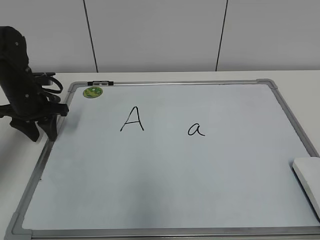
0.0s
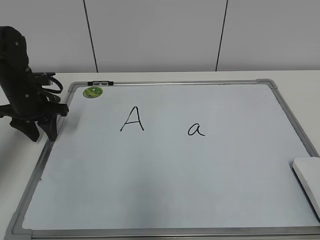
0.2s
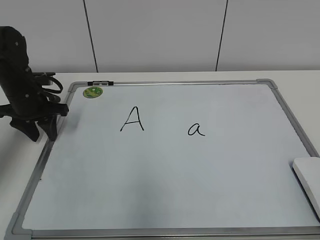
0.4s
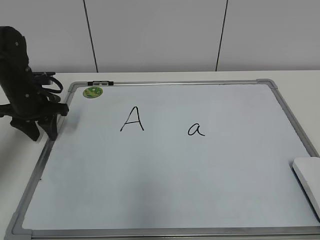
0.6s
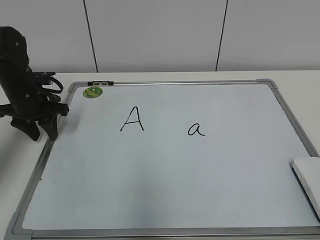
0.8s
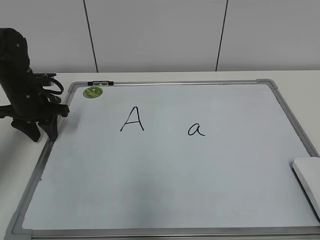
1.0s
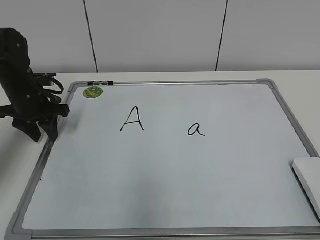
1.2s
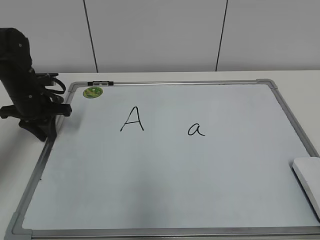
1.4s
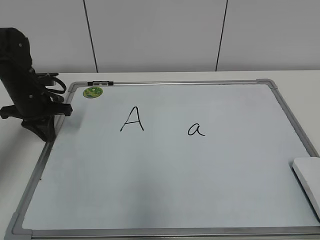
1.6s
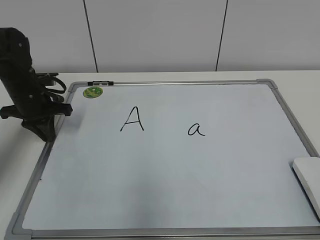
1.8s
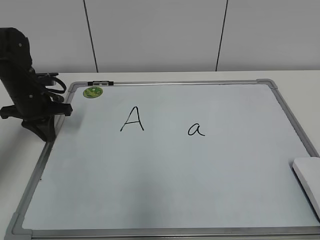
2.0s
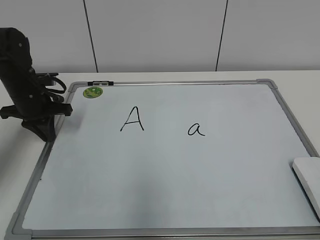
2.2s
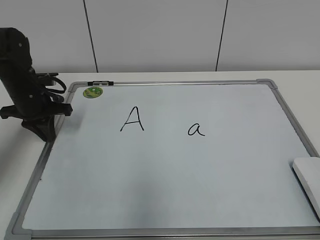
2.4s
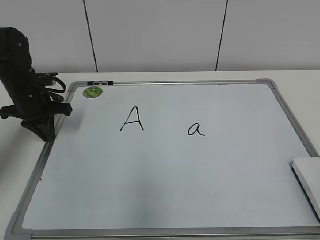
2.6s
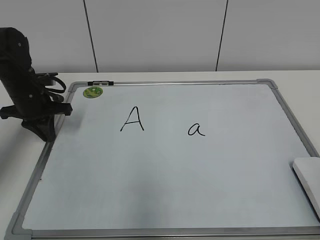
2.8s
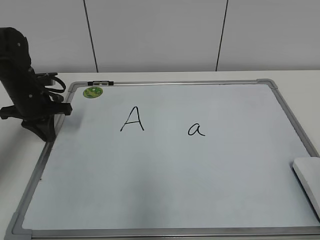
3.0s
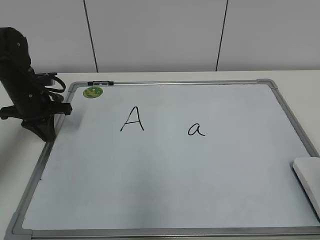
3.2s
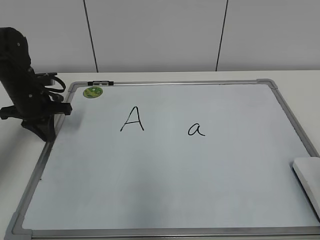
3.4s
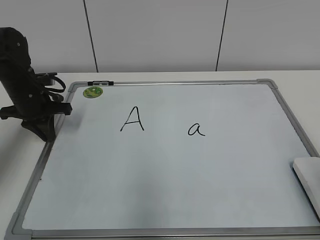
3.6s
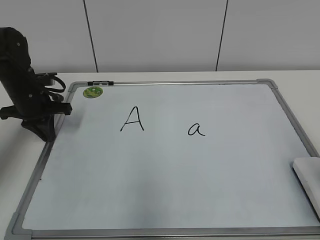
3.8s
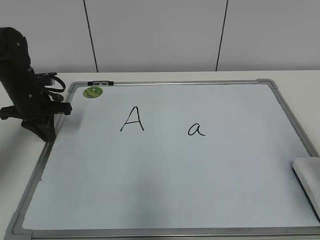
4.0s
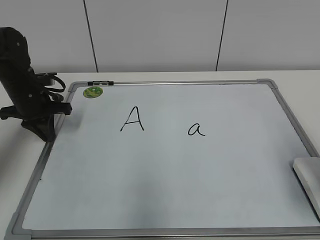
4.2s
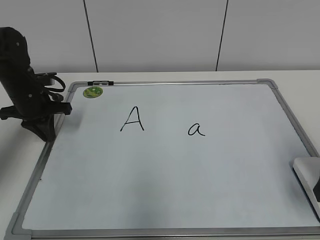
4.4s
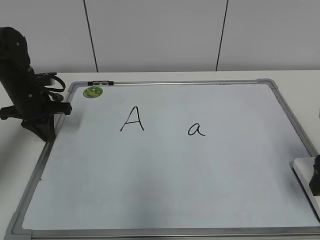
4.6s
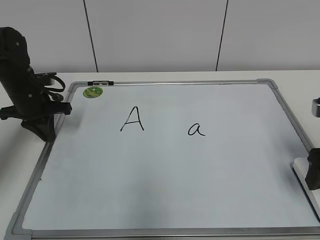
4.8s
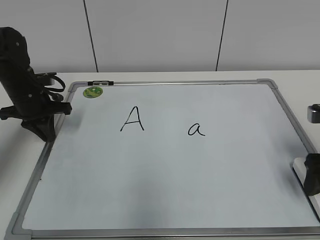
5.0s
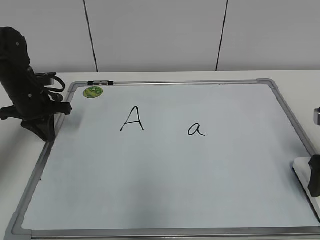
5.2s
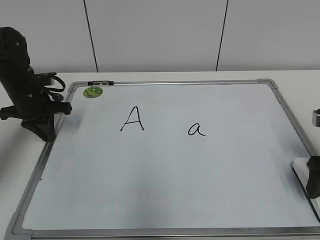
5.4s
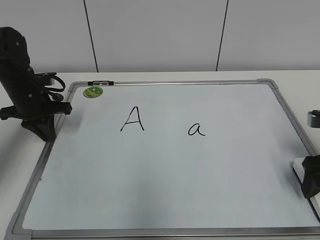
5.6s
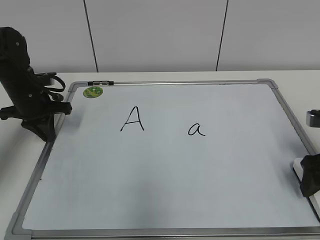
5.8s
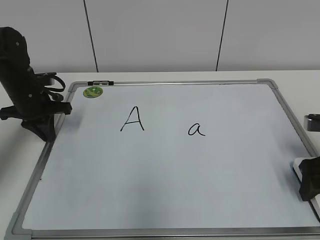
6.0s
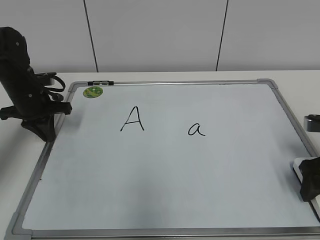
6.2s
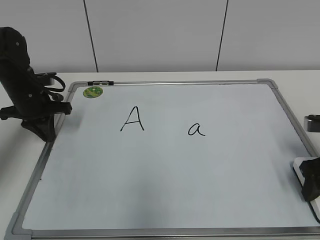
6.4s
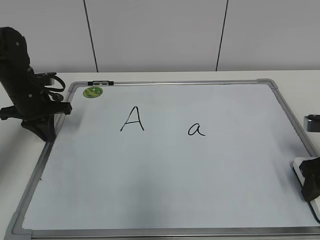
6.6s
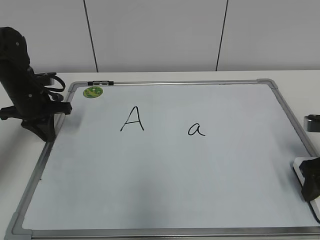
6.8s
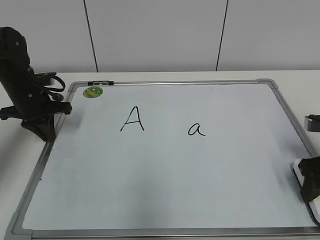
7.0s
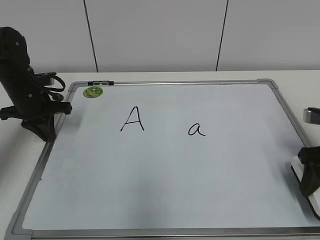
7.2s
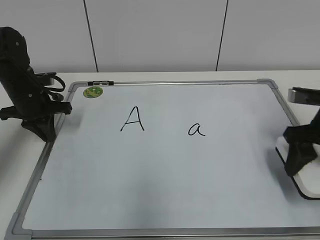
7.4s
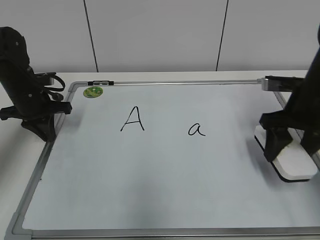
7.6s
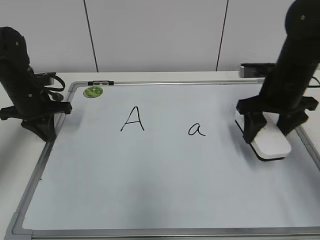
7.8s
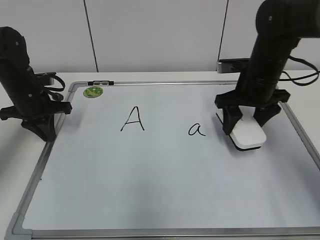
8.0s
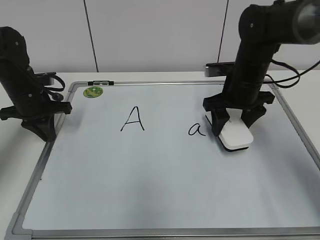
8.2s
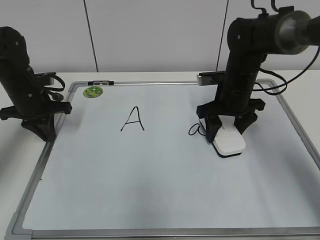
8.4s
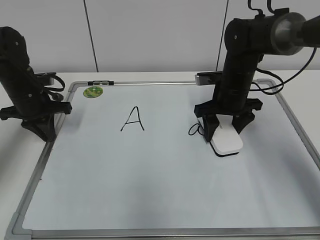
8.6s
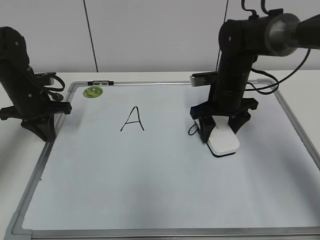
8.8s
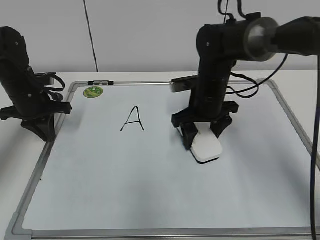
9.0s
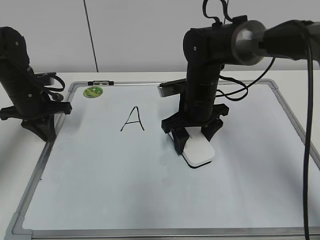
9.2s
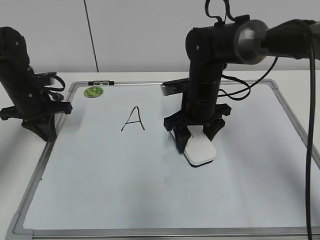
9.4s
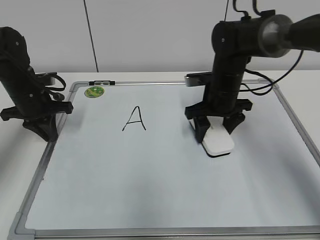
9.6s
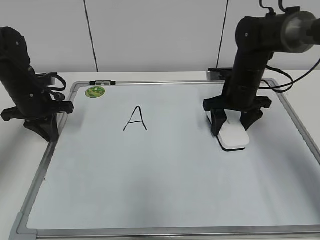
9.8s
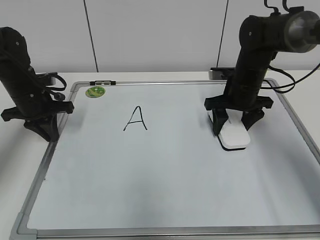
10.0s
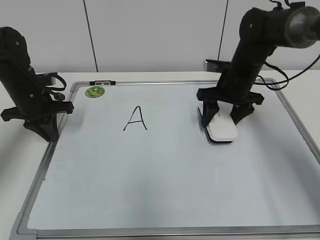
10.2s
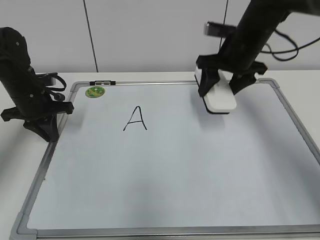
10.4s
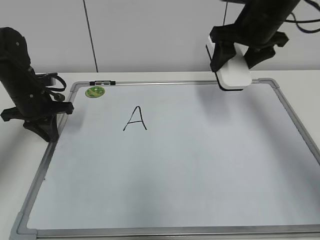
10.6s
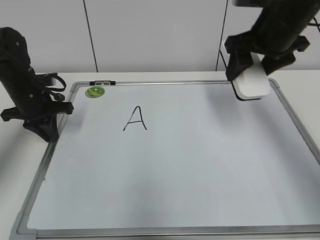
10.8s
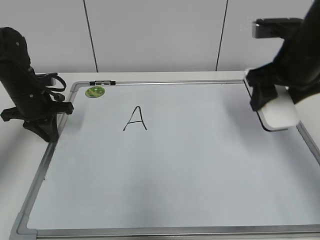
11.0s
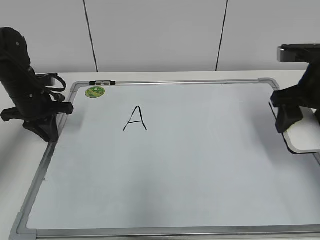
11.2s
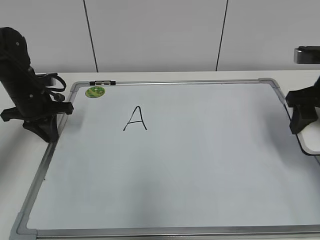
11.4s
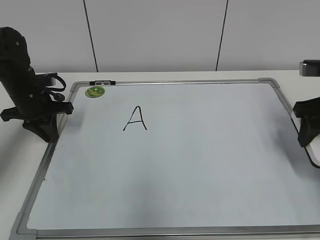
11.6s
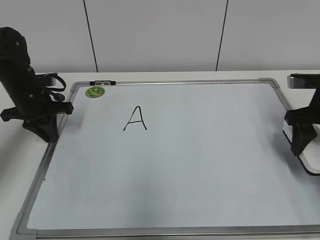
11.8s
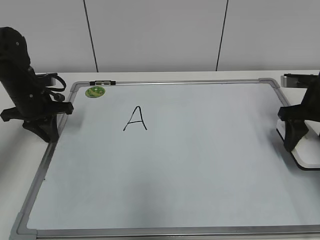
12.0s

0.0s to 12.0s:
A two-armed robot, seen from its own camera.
Task of the whole recording: pick up the eraser on the blackboard and erase the letter "a".
Step, 7.0s to 9.8s: Erase the letter a with your right hand.
0.0s to 1.6s: The left gripper closes.
3.0s to 4.4s: The right gripper heads forward and downward, covering about 15 cm, and opens its fingers.
4.4s to 6.0s: The right gripper moves forward and downward, about 10 cm.
6.0s to 7.6s: The right gripper shifts roughly 10 cm to the left, forward and upward, and closes its fingers.
7.6s to 9.0s: The right gripper goes approximately 15 cm to the left and forward.
9.0s to 10.4s: The right gripper heads upward and to the right, covering approximately 10 cm.
10.4s to 12.0s: The right gripper heads to the right and backward, covering approximately 15 cm.

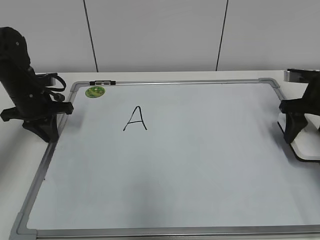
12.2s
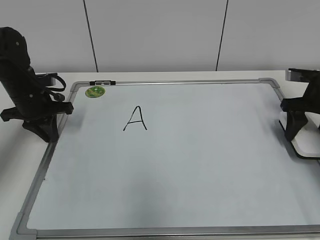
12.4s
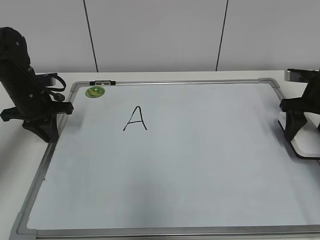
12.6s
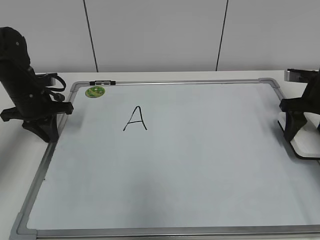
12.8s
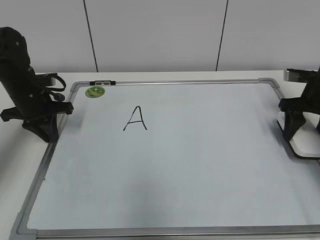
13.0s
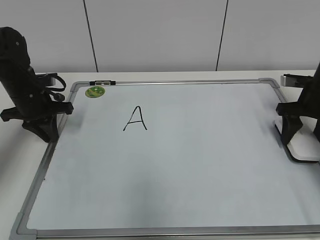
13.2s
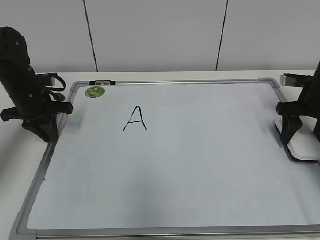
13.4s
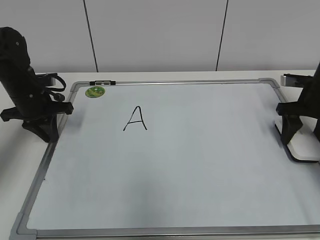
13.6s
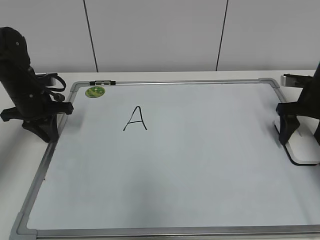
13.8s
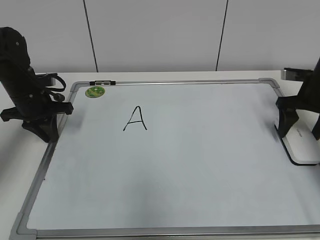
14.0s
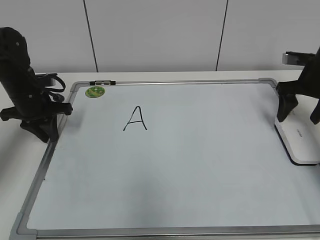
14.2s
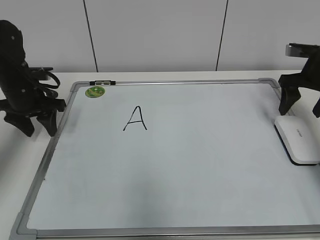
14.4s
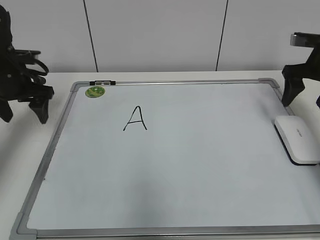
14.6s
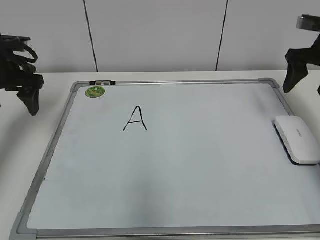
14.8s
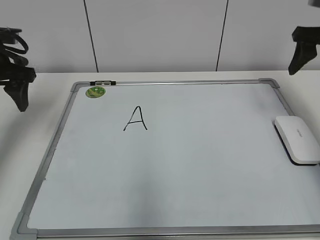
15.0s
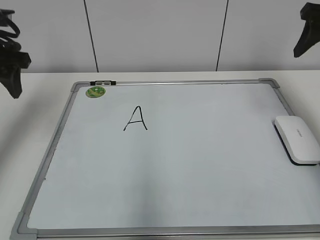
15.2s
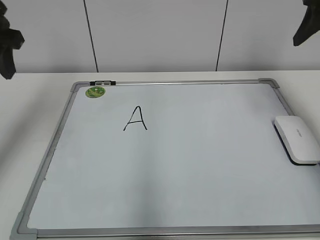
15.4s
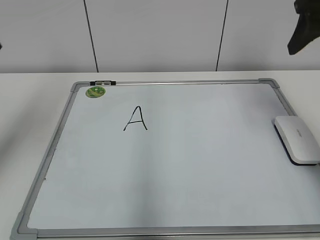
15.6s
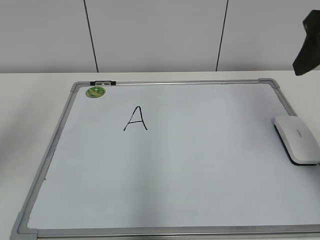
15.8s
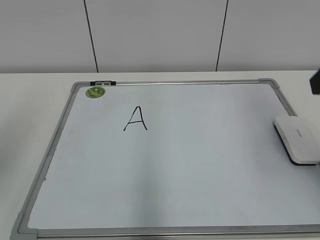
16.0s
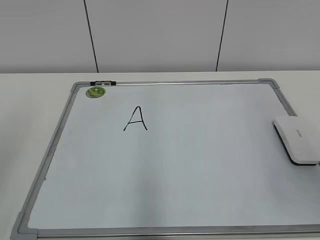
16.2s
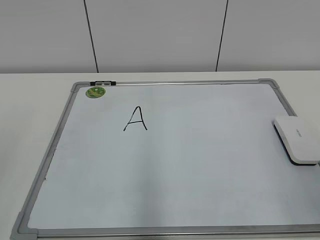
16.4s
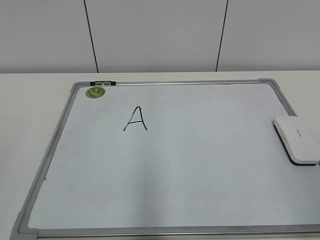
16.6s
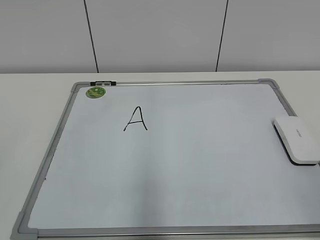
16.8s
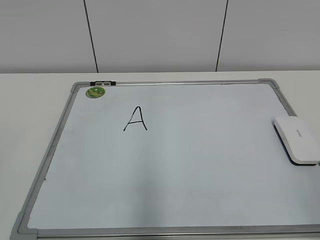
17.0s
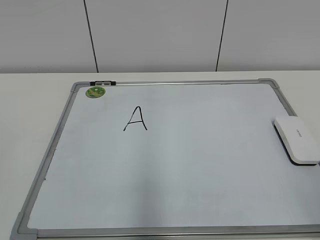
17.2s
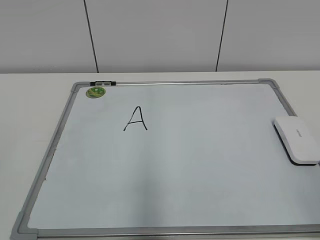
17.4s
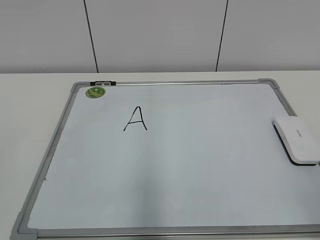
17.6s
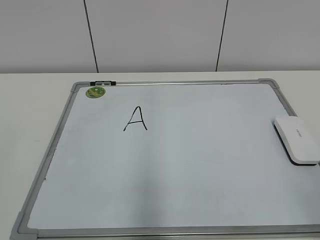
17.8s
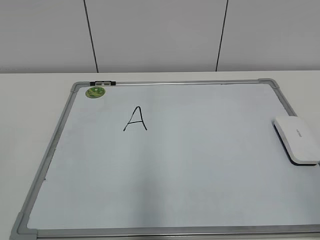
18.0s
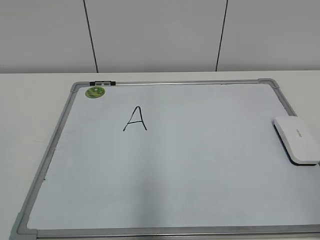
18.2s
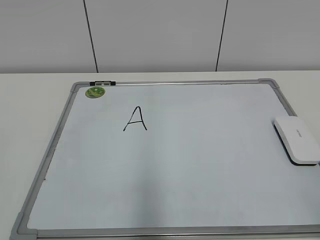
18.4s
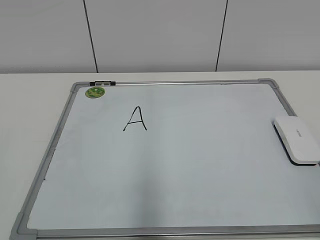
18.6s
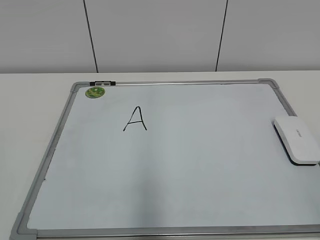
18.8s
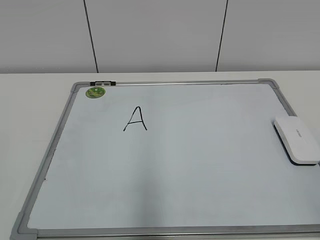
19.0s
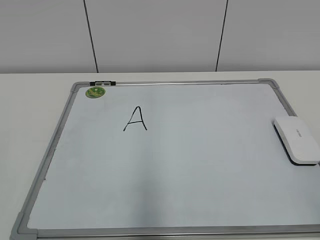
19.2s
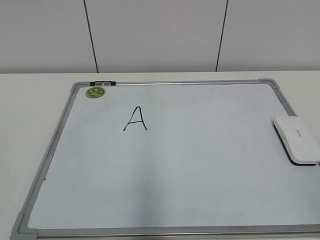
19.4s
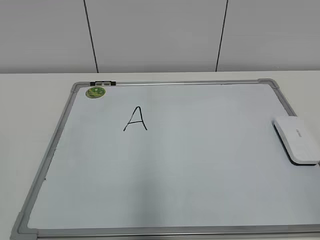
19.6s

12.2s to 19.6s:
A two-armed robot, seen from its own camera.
Task of the whole recording: pick up the eraser on the blackboard and erase the letter "a".
12.2s to 13.6s: There are only small adjustments of the grippers.
13.6s to 15.2s: The grippers both shift upward by some 15 cm. The left gripper opens. The right gripper opens, then closes once more.
15.2s to 16.6s: The grippers both shift backward by some 30 cm.
